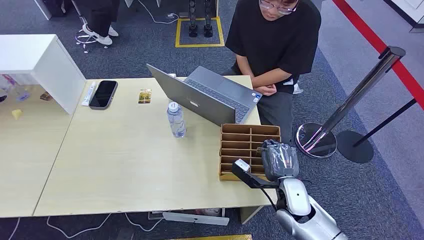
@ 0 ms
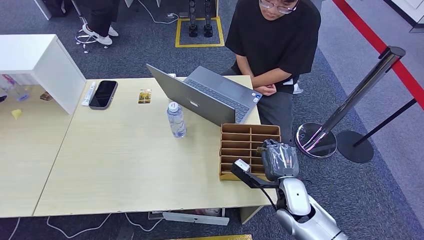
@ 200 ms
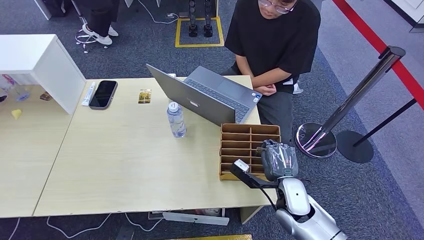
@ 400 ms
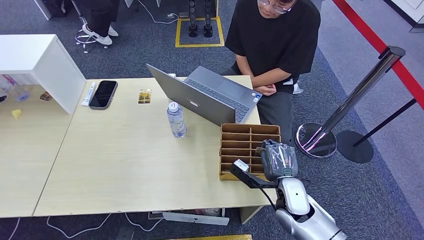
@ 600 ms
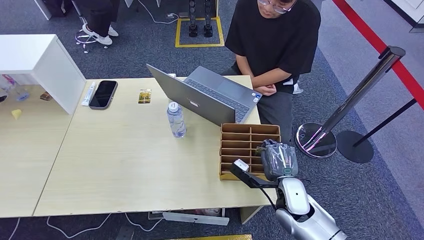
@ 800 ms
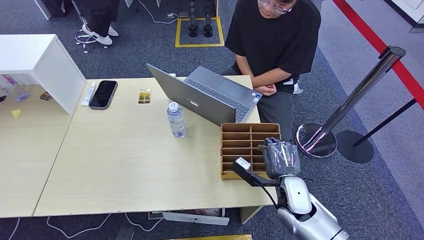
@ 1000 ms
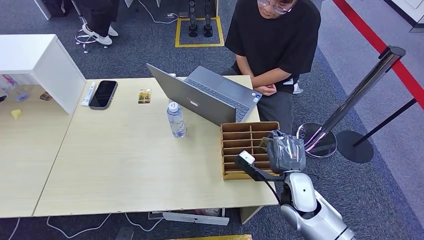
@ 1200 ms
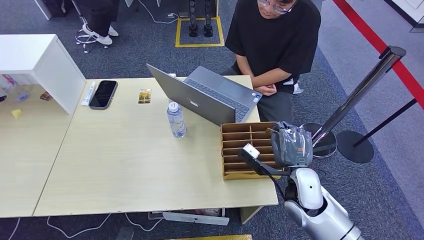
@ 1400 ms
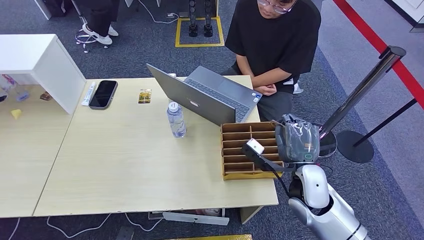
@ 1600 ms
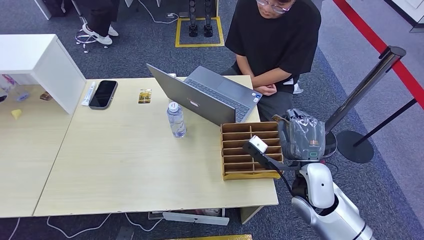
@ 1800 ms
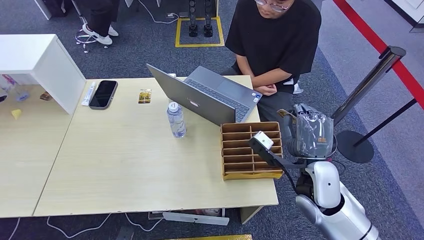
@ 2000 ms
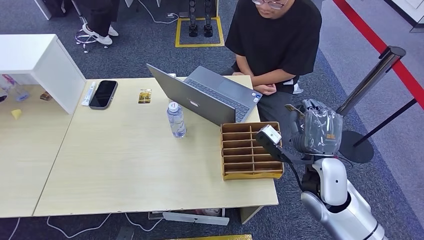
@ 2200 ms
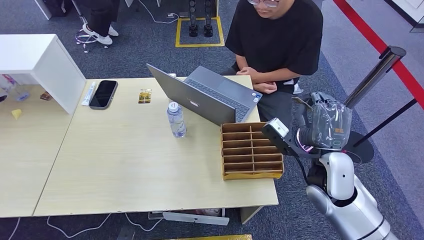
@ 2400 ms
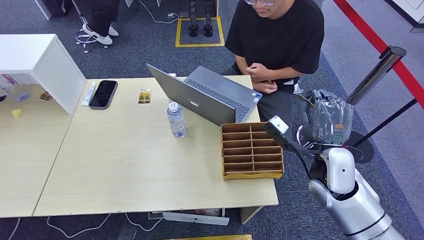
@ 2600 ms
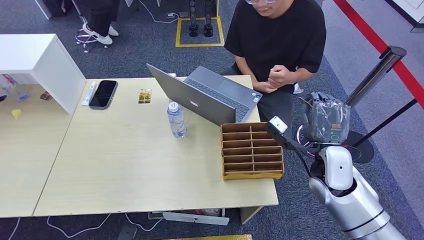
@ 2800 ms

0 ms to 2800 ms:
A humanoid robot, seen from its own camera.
Task of the whole recording: Pick up the card and hand it over to the target person.
Step, 0 ms to 1200 ms: Pick up the key card from the card box.
Step, 1400 ms to 2800 ms: Hand the key card to the target.
1400 ms to 2800 ms: The right hand goes roughly 5 cm to the right and forward.
